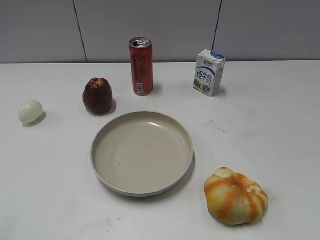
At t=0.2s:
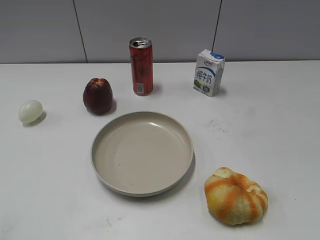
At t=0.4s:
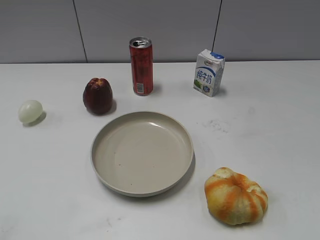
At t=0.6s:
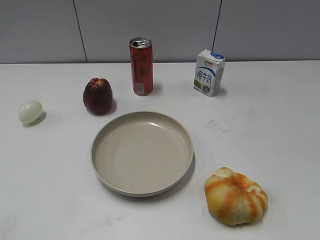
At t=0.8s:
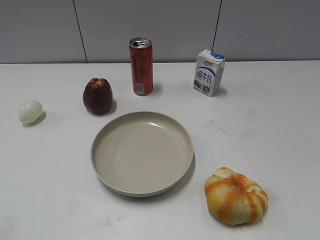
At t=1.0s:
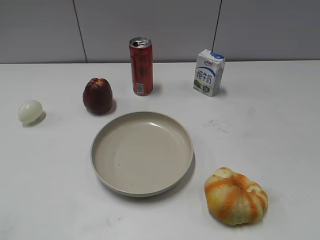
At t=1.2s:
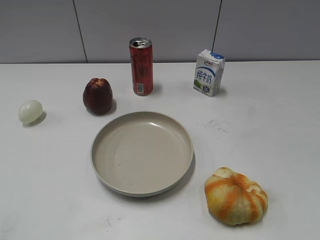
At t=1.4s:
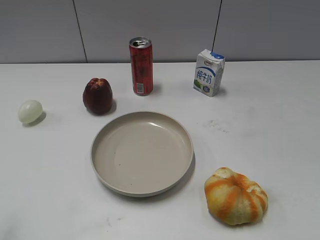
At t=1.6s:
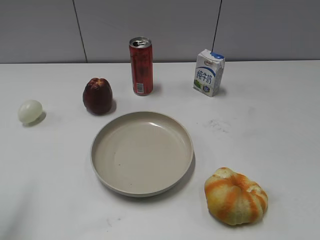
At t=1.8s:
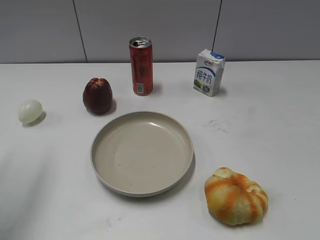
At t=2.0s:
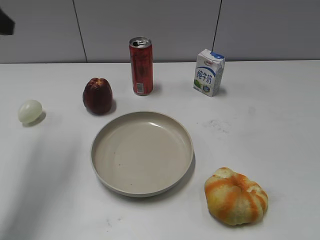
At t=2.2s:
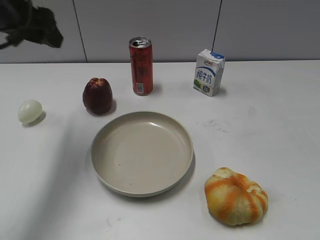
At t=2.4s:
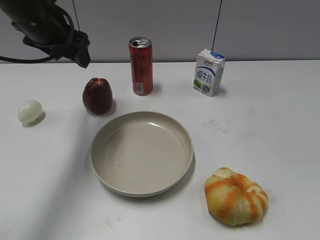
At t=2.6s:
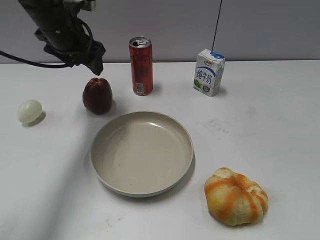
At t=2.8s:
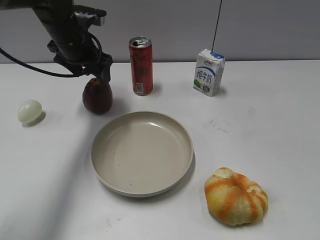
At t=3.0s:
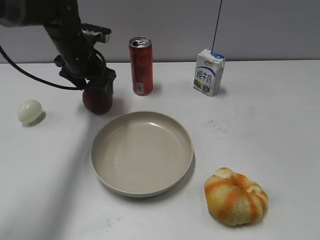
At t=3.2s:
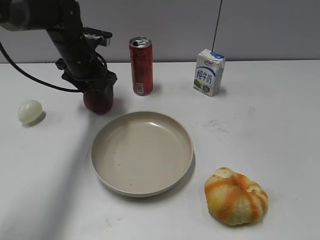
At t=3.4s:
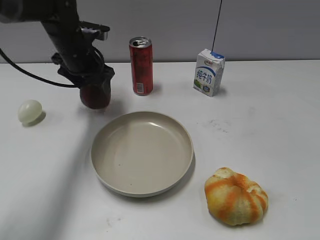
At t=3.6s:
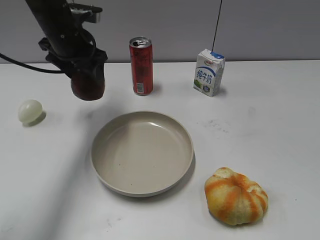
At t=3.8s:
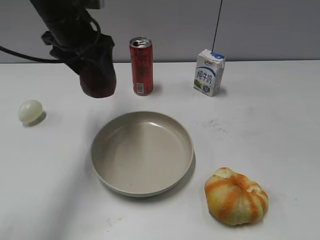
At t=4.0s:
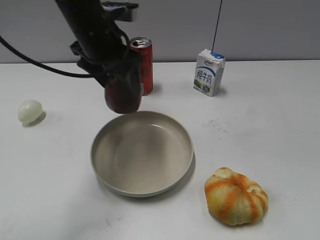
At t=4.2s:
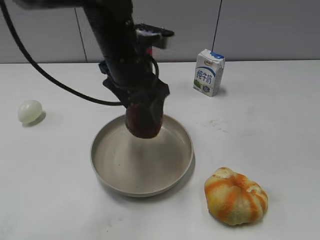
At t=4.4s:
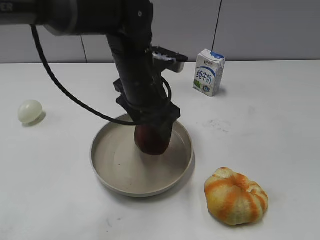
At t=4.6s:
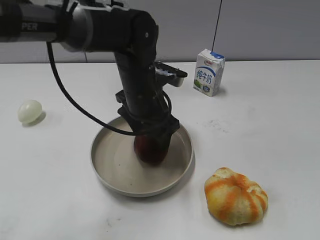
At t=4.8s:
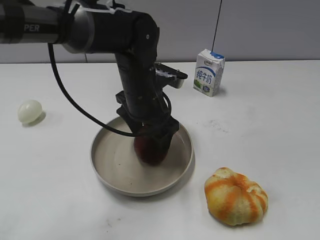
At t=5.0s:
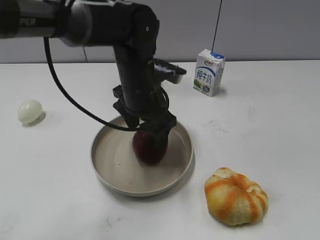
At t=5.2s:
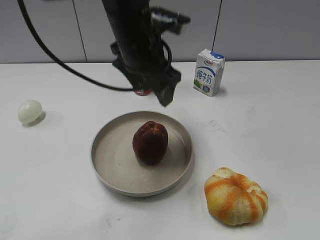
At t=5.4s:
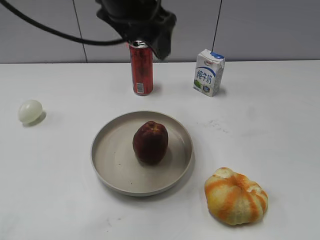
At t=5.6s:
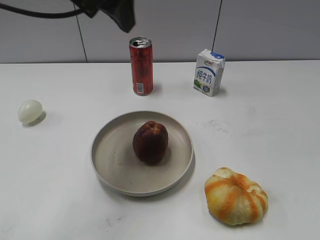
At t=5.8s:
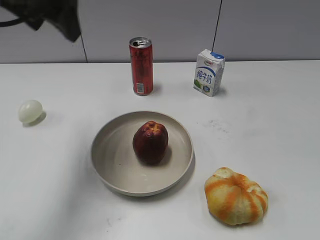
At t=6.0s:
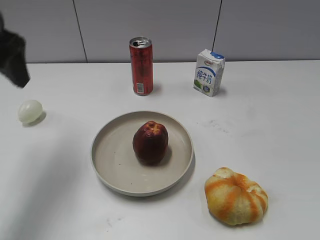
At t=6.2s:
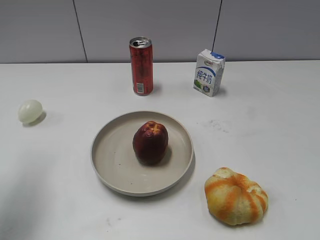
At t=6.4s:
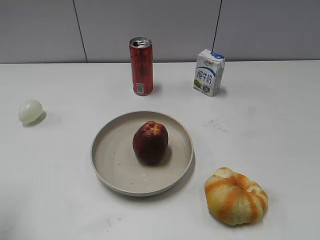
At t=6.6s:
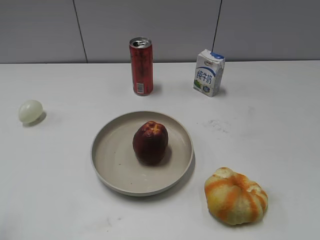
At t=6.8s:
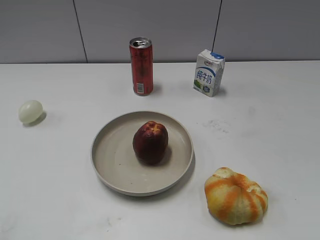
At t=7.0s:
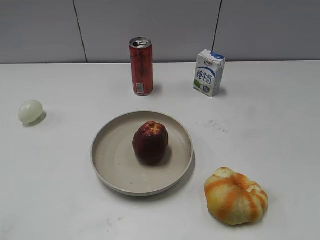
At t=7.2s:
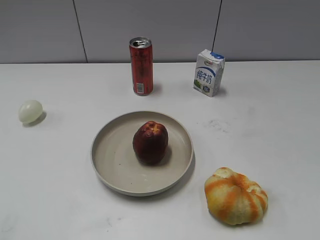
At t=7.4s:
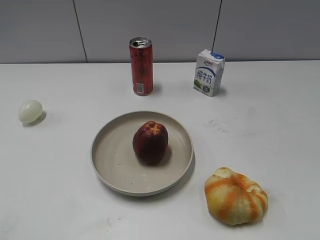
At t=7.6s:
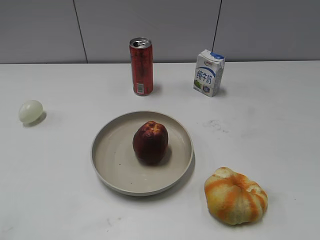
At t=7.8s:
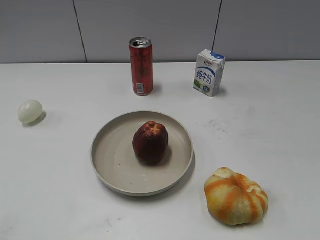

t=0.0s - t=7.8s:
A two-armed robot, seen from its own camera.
Step, t=0.0s - t=3.0s: Grasp the apple with left gripper.
Step, t=3.4s - t=5.0s: Place the apple on the plate with left gripper.
t=1.6s - t=3.2s: The left gripper is displaced forward, to the right and downward by roughly 40 cm, and opens and closes again.
t=3.2s - t=4.6s: The left gripper is displaced to the right and backward by some 20 cm.
t=4.6s - t=6.2s: The left gripper moves to the left and upward, about 30 cm.
t=6.2s - t=7.8s: The left gripper is displaced backward by roughly 20 cm, and closes its fingers.

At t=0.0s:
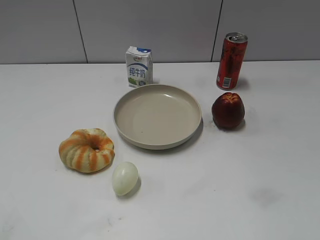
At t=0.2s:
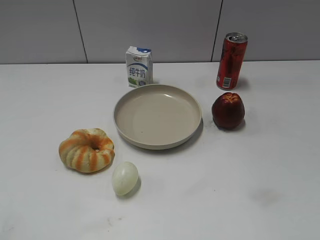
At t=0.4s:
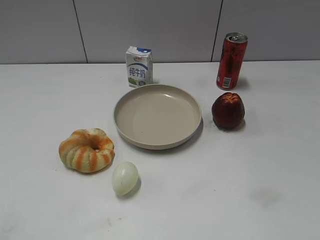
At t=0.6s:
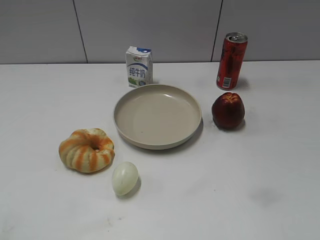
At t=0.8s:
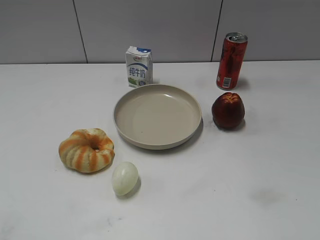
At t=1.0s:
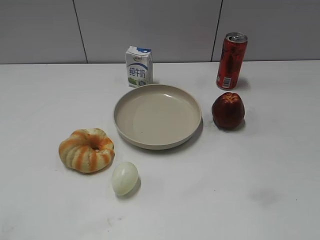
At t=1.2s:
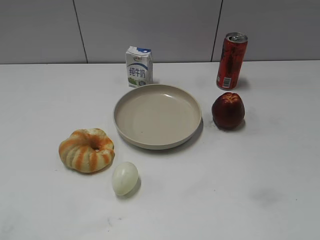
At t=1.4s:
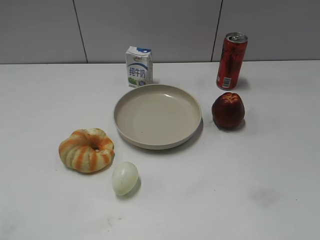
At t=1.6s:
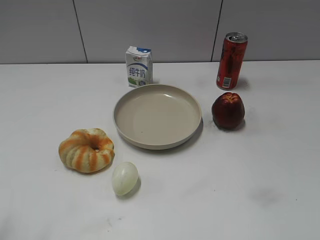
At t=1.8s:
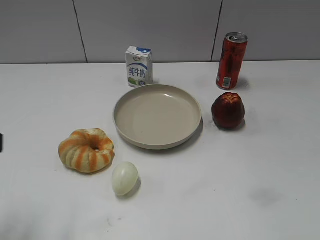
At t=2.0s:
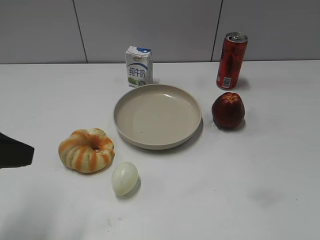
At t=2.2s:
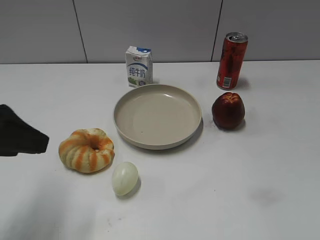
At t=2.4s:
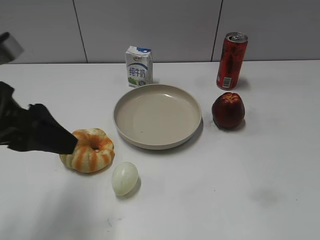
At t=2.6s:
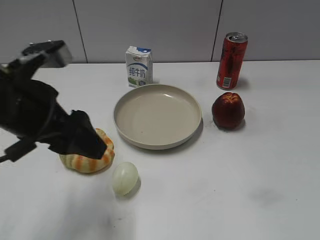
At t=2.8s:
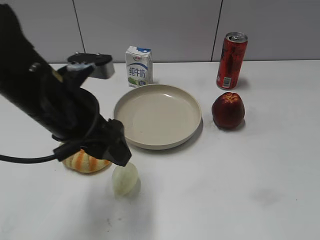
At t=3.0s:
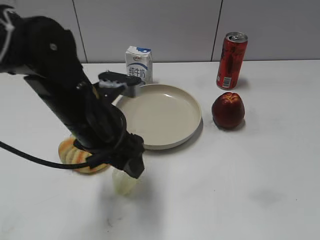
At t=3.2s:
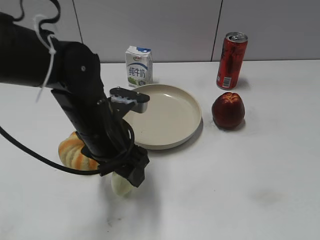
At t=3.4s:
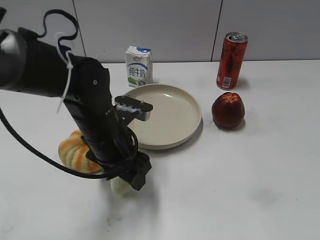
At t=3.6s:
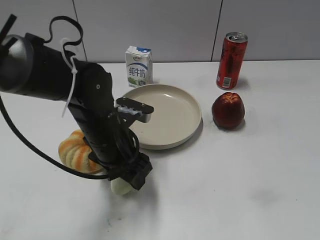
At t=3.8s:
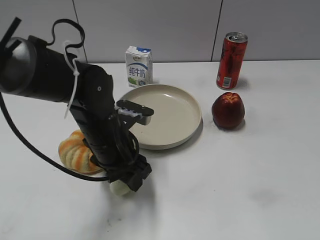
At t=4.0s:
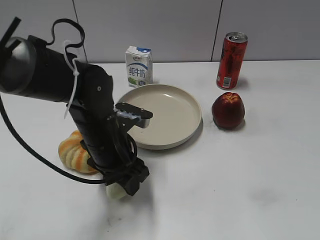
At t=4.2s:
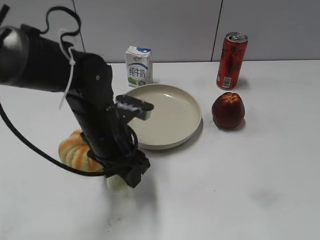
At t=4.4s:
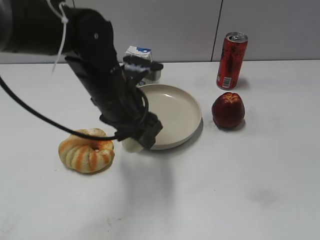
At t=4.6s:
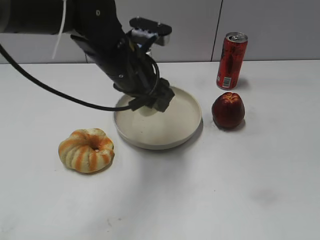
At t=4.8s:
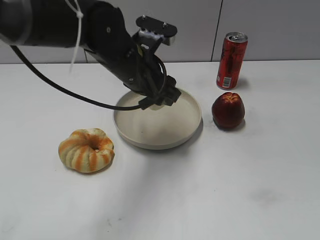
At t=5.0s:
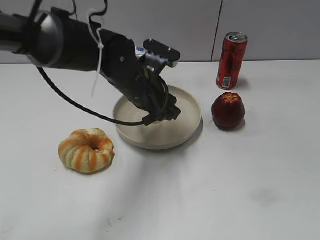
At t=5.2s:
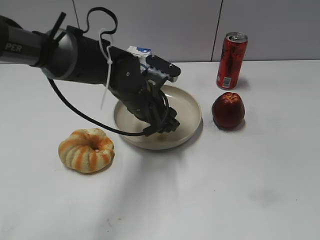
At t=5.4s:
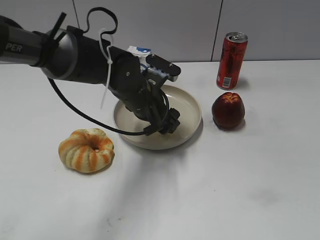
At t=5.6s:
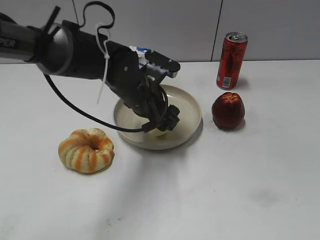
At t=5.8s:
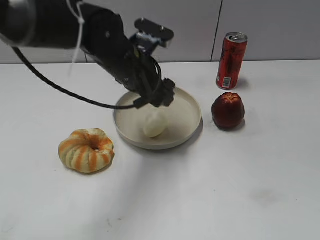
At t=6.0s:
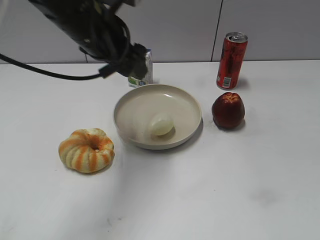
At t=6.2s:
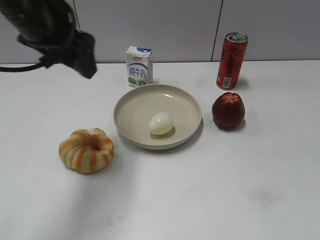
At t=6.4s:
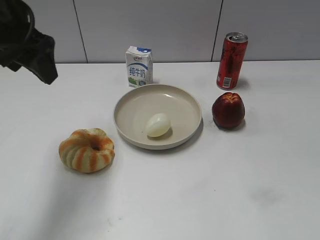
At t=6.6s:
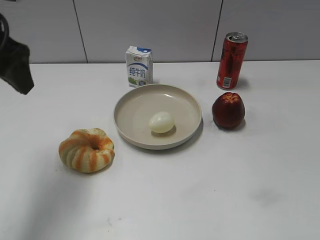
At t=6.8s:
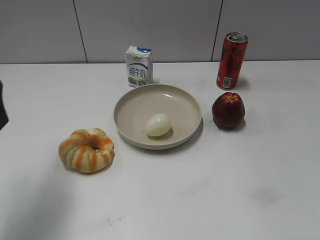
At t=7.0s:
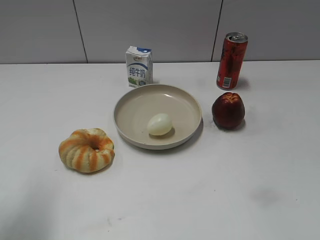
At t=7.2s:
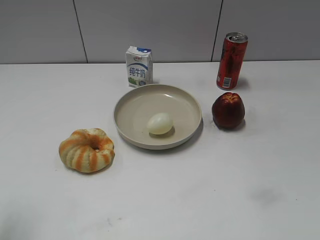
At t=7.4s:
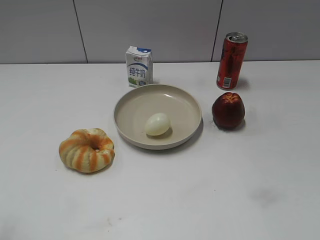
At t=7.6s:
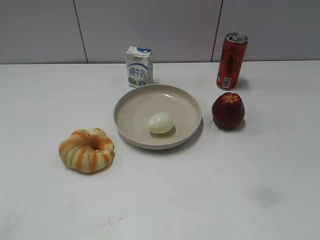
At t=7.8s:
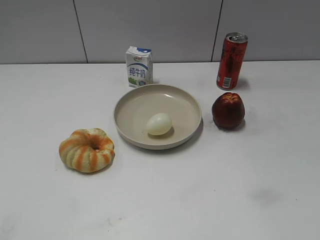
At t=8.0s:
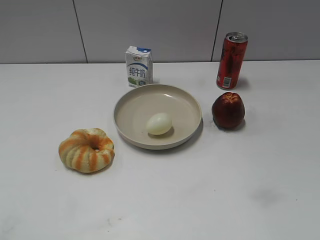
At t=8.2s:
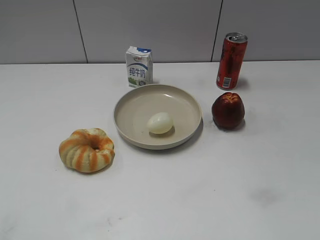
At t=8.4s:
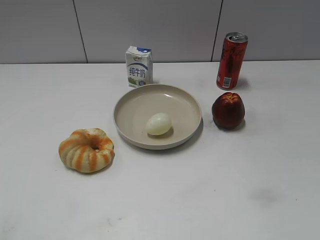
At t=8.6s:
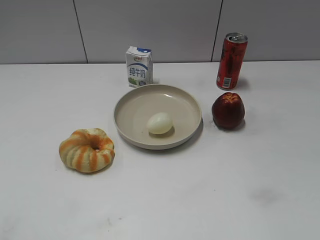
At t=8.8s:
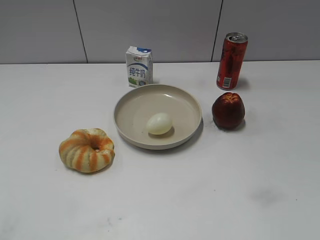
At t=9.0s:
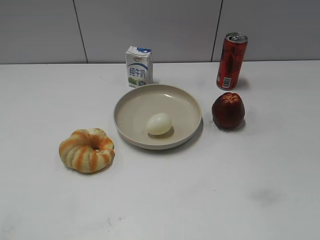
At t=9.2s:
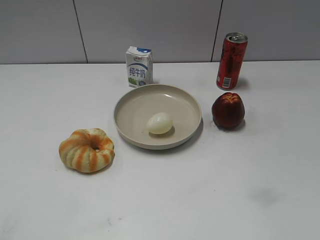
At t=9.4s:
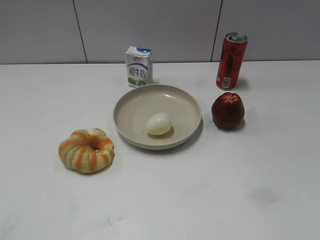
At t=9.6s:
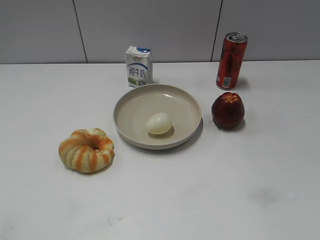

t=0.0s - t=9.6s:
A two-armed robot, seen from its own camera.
Step, t=0.6s - t=3.8s: Grasp the egg with left gripper.
Step, t=4.2s - t=5.4s: Place the egg on the plate with left gripper.
t=1.6s - t=3.2s: The left gripper heads to the right, forward and downward, covering about 30 cm.
t=3.2s - t=4.8s: The left gripper goes approximately 10 cm forward, and closes its fingers.
t=4.8s - t=6.4s: The left gripper travels to the left and upward by some 20 cm, and opens up.
t=6.4s - t=8.0s: The left gripper shifts roughly 30 cm backward and to the left.
